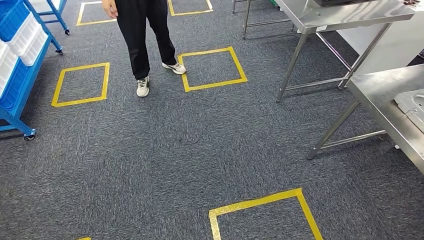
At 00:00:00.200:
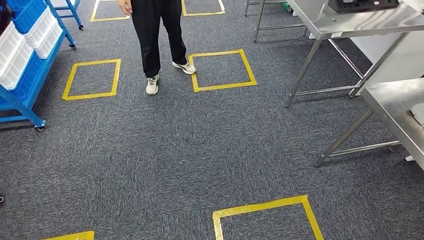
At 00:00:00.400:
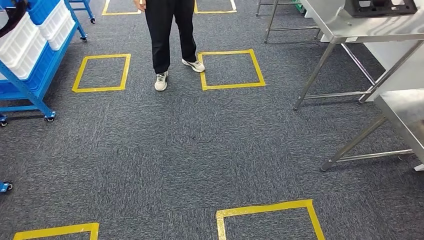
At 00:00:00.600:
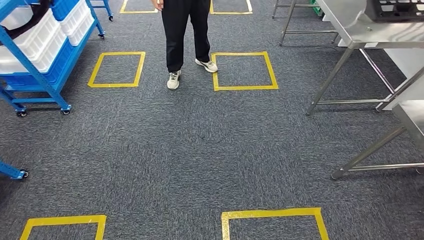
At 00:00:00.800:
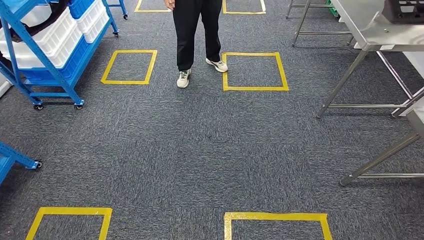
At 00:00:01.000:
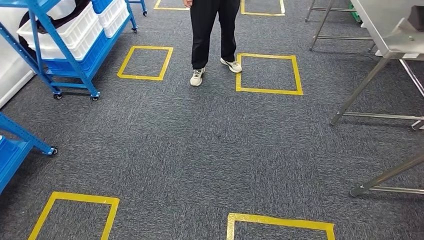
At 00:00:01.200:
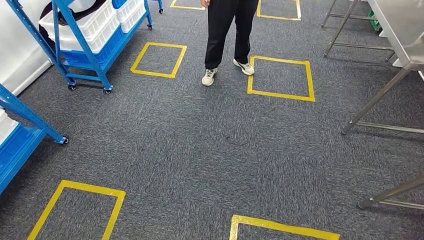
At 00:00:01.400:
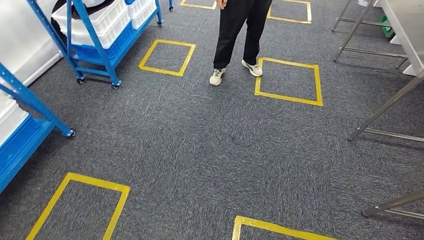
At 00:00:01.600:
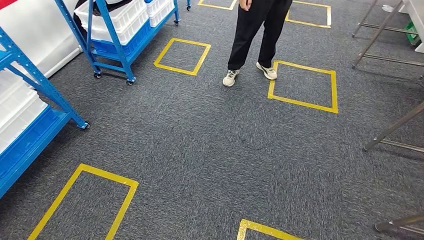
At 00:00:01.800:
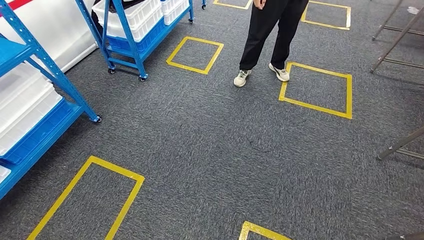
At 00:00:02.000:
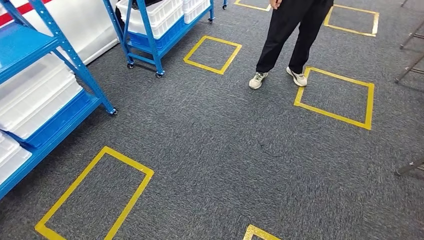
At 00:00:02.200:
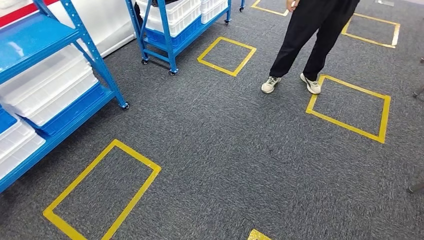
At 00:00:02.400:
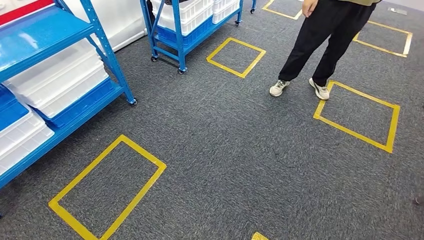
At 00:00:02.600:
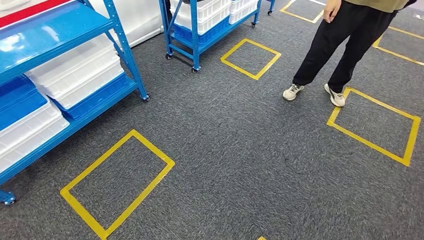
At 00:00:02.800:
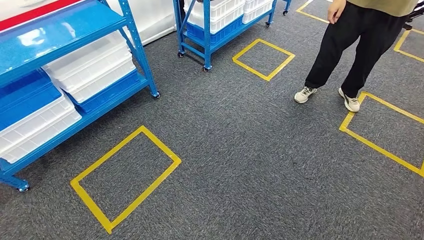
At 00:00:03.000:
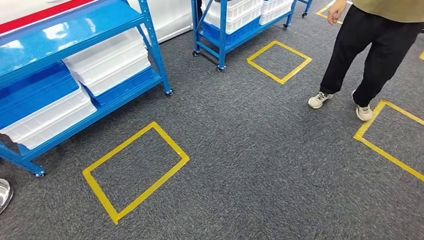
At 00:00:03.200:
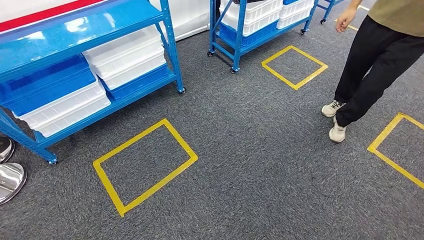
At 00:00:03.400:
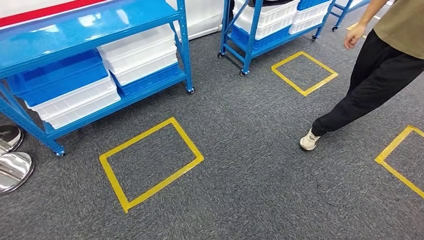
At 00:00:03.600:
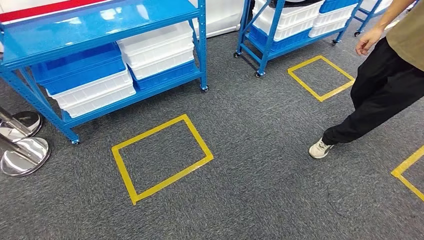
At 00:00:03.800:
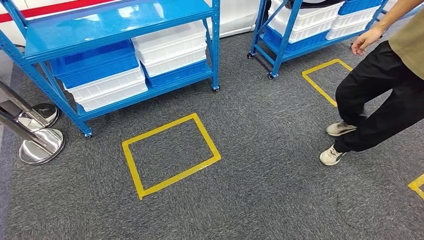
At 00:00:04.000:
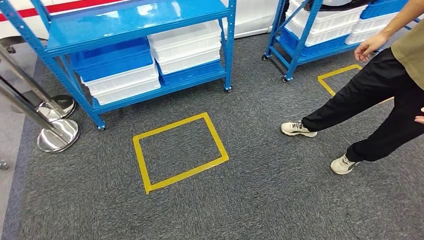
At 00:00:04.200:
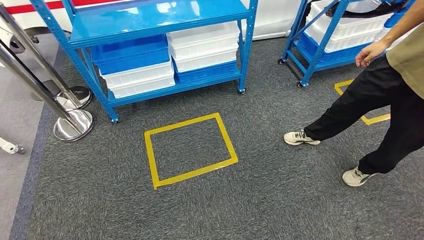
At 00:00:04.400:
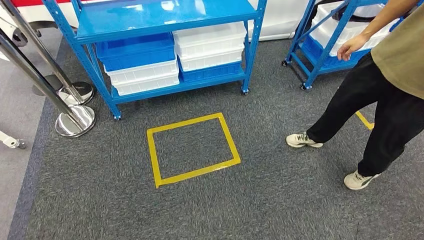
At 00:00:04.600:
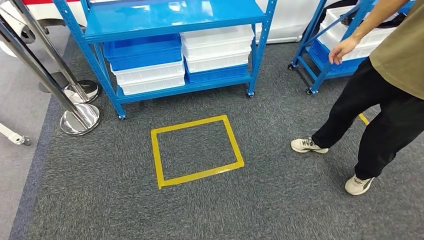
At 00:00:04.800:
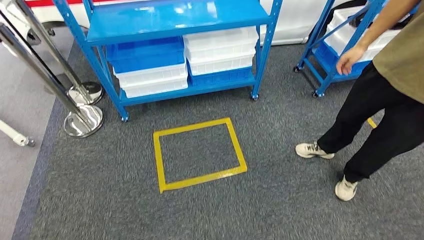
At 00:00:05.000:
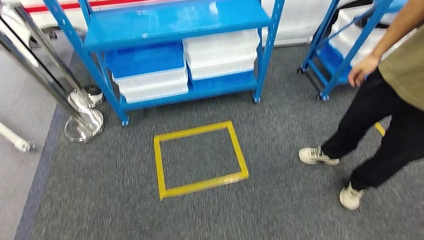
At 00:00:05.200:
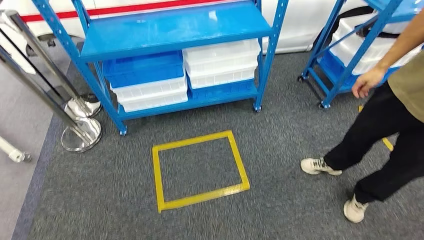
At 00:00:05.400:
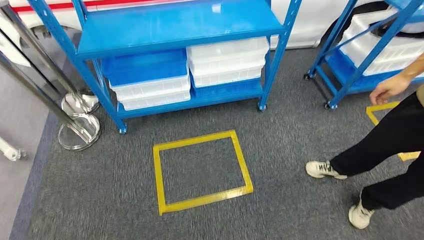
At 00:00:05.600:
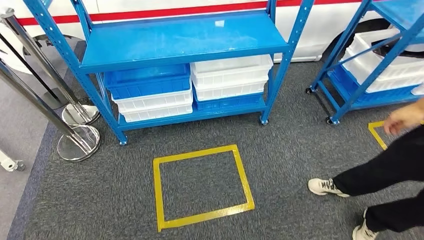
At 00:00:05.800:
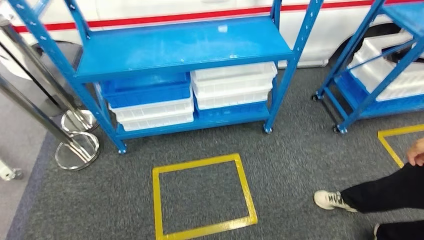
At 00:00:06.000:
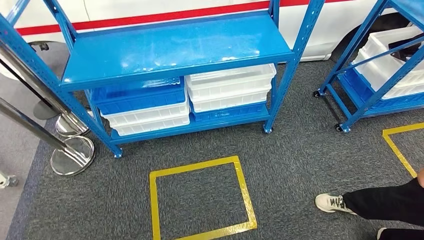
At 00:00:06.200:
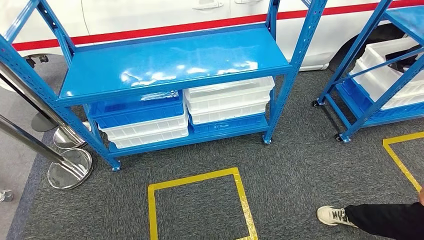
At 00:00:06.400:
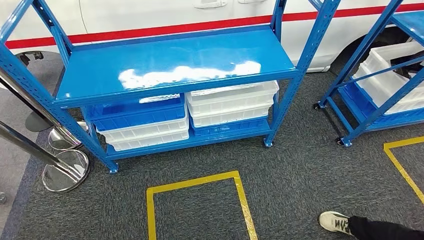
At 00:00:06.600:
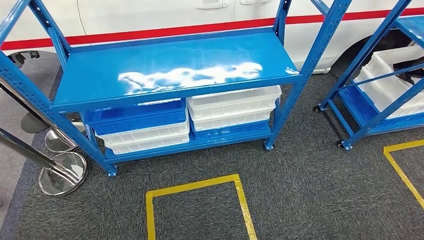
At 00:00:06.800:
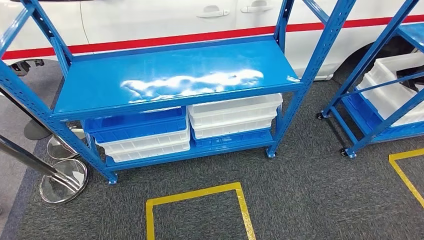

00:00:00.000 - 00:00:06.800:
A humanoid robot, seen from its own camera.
Step, 00:00:00.000 - 00:00:06.800: Move to the initial position of the shelf.
